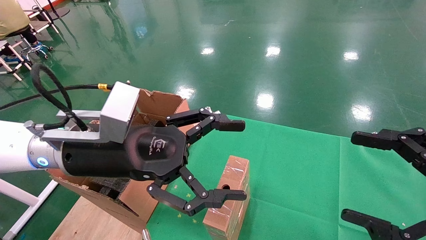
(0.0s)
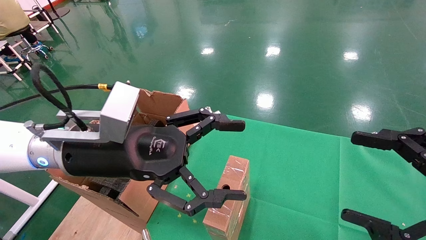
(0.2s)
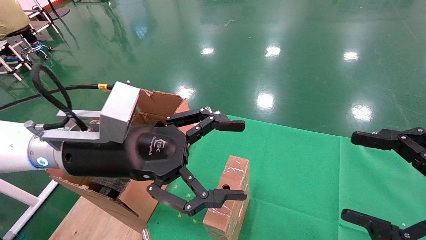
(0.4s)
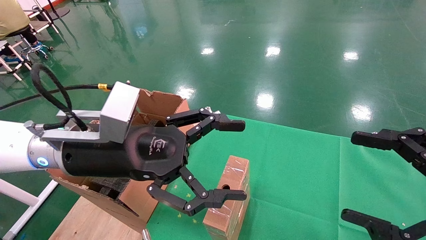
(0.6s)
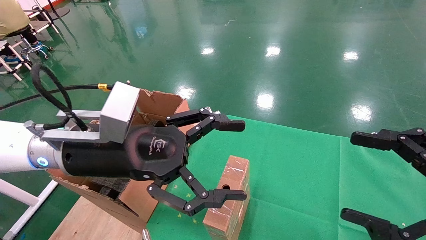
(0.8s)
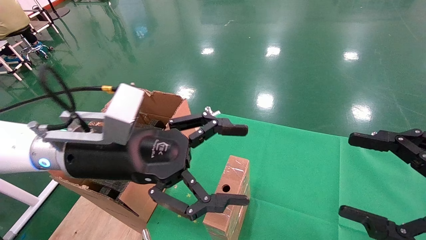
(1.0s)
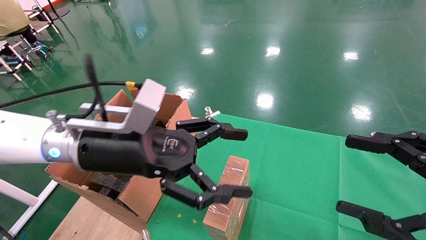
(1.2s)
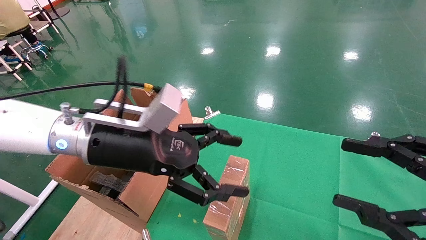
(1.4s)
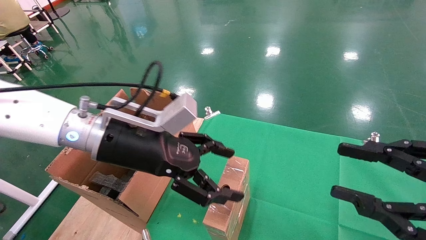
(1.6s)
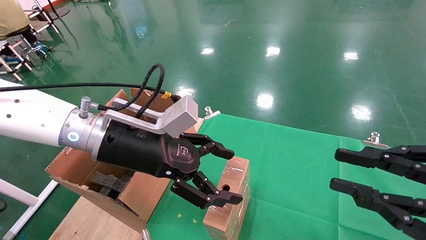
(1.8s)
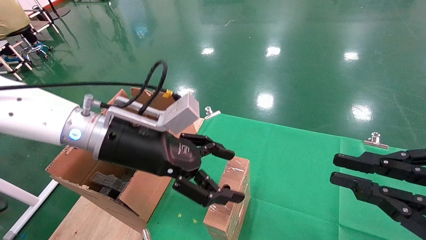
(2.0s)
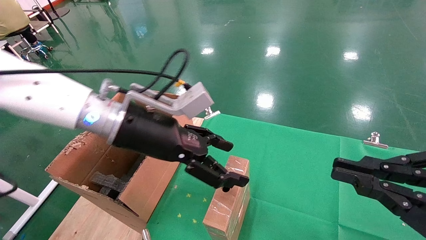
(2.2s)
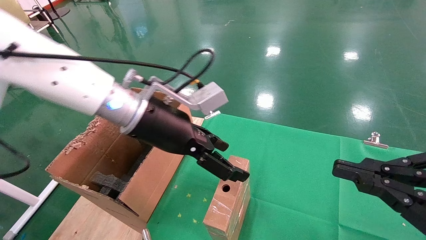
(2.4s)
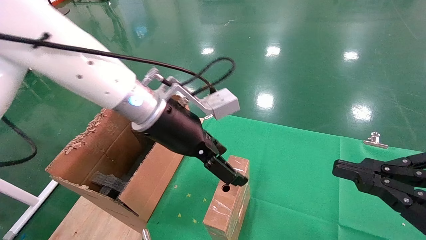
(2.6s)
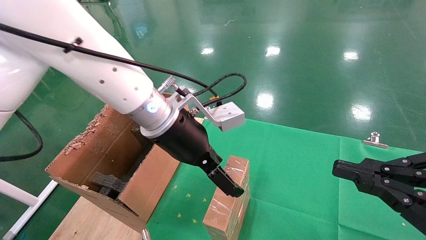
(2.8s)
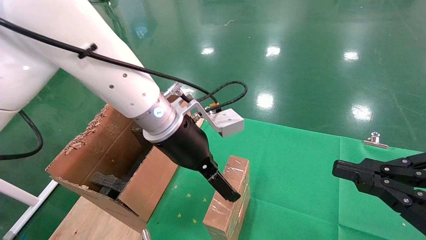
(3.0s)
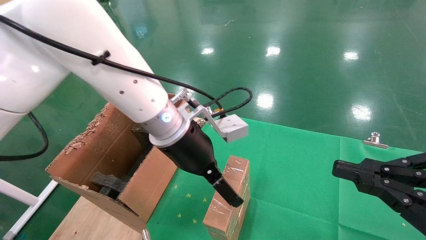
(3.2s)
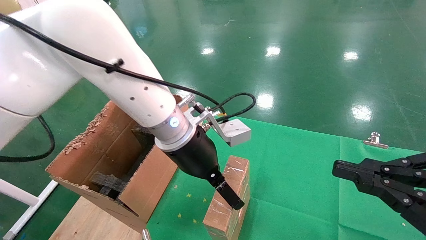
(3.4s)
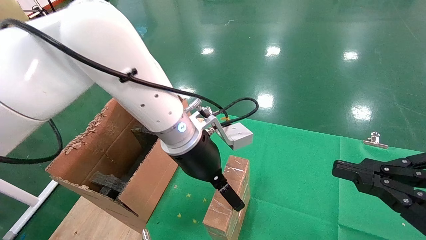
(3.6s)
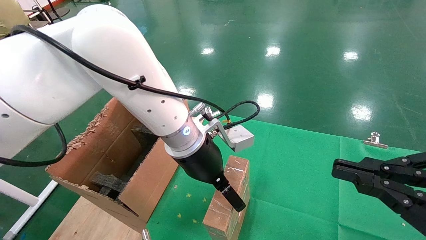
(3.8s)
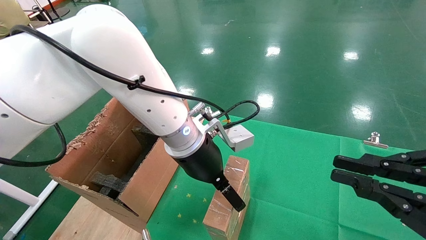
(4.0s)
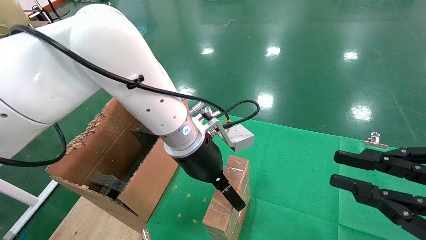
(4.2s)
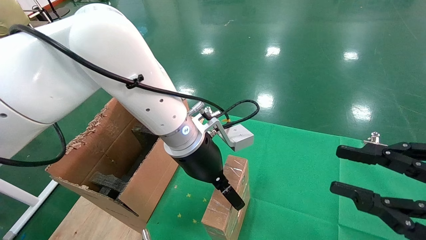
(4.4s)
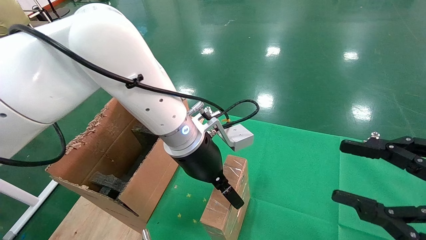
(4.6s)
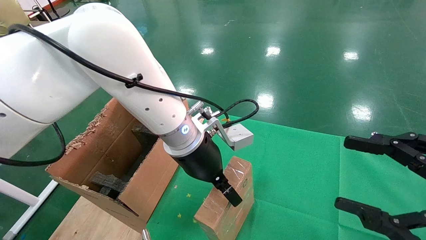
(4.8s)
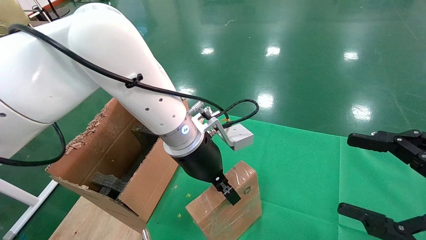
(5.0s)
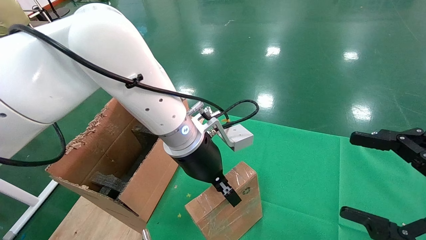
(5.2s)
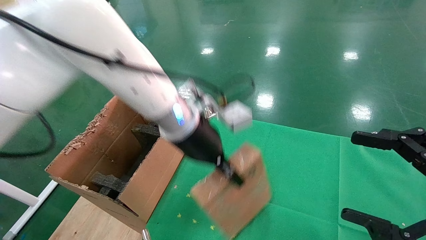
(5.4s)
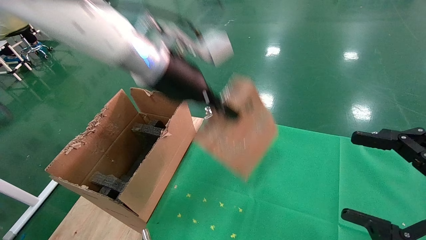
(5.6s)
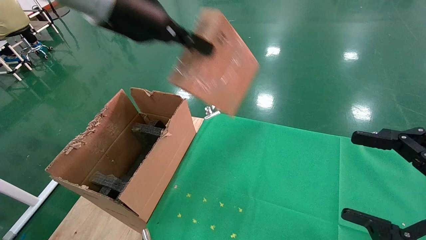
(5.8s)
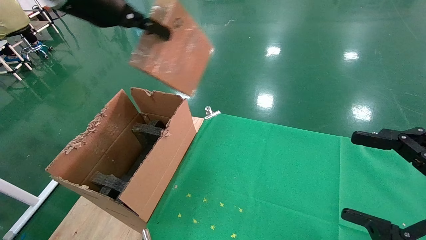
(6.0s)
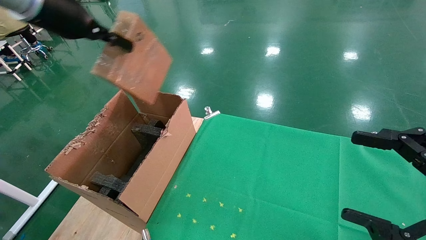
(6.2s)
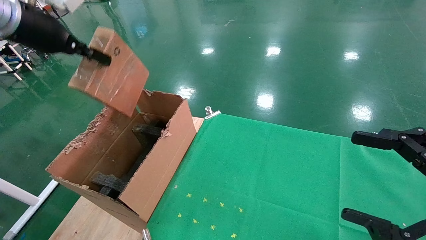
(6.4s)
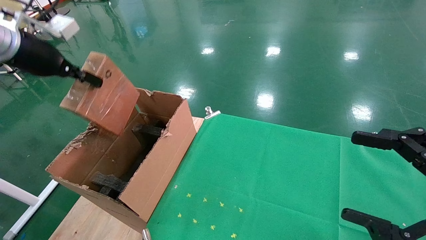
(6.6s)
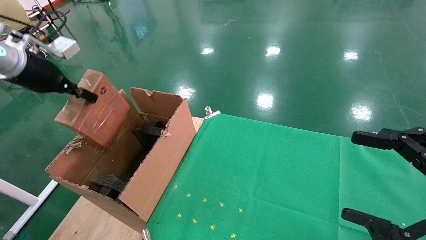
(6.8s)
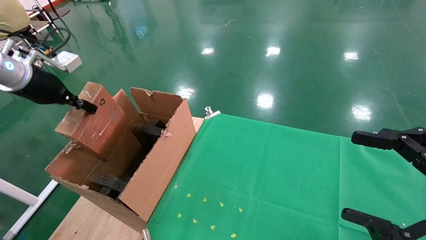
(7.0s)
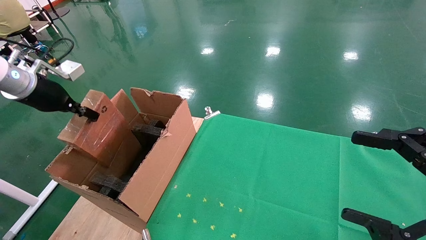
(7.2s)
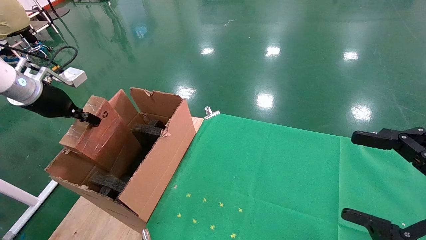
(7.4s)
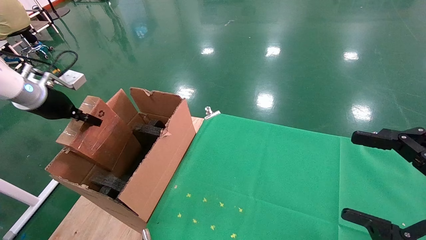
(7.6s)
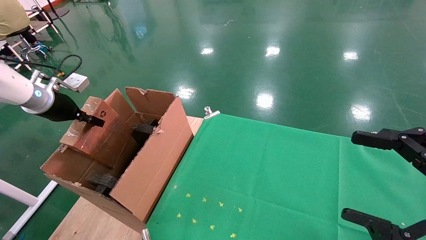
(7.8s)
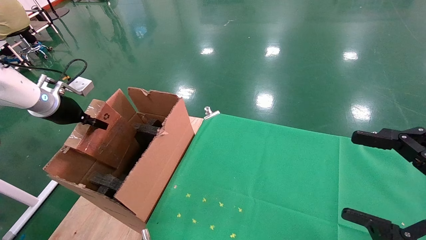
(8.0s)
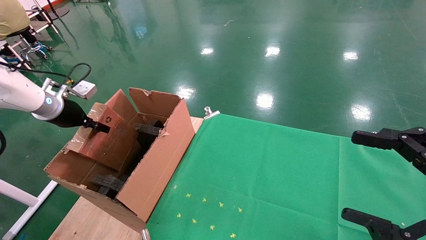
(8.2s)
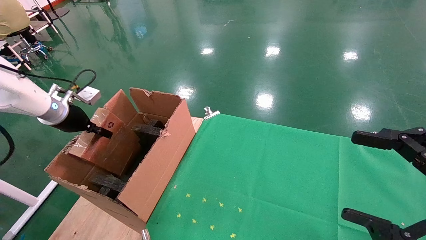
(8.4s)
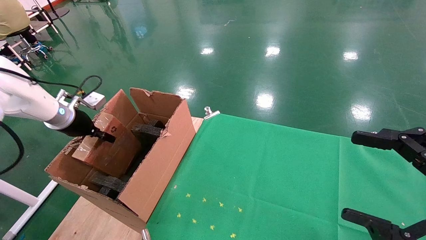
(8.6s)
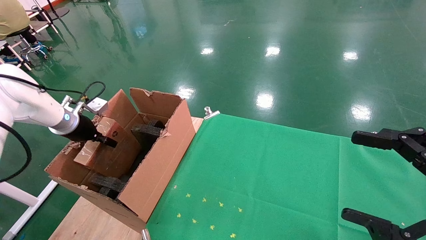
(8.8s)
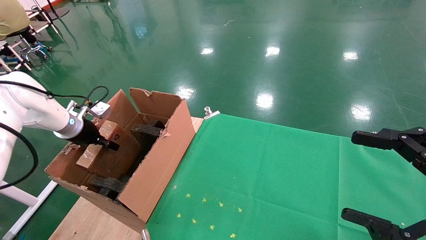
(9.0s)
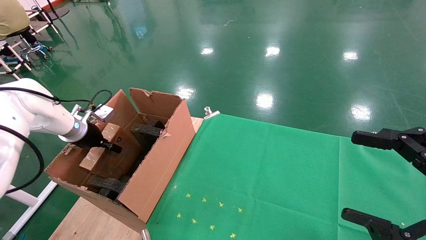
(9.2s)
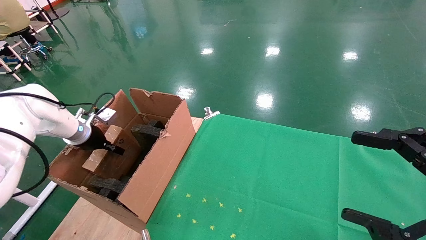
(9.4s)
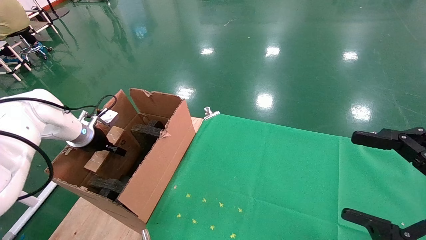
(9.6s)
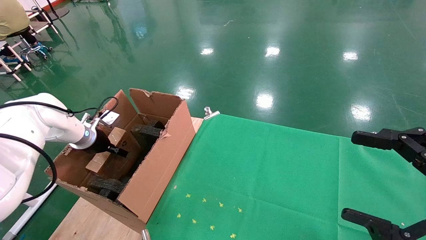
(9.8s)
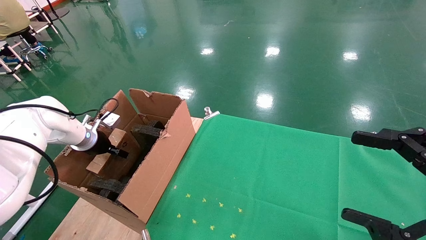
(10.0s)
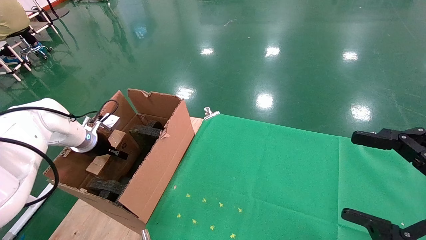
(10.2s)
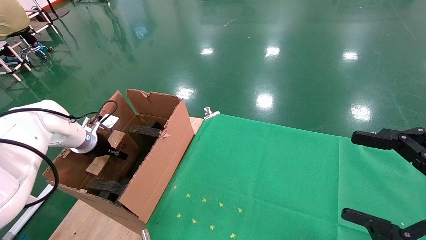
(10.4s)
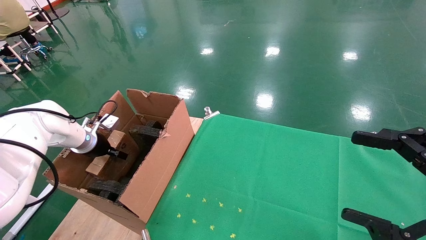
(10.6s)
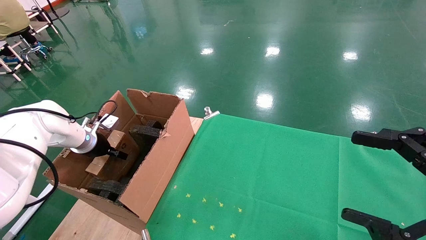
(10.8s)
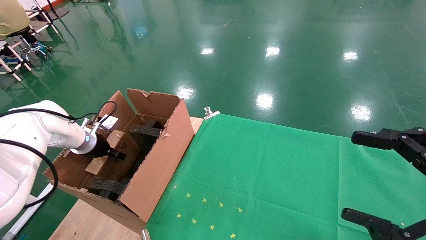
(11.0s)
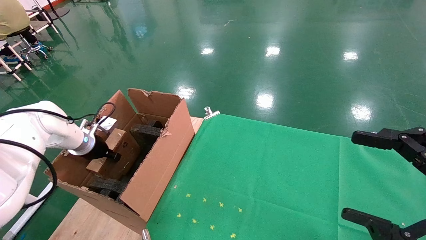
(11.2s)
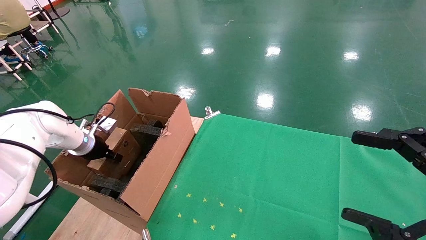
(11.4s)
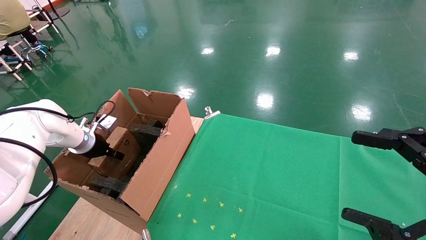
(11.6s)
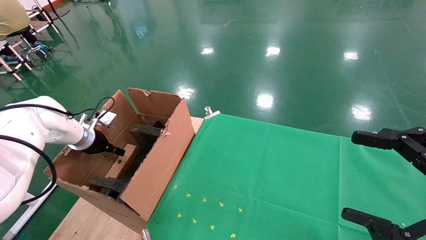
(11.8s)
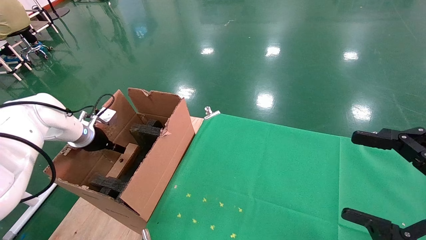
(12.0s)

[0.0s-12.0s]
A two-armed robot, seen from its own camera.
Task of the whole recording: using a robotic arm to pick up a cardboard box and palace it the carton.
Step, 1.2s to 5.0s: Pick up the mouse and the power cord paper box.
0.0s to 1.6s: The right gripper closes up.
1.6s to 3.0s: The left gripper heads to the right, covering roughly 10 cm. The right gripper closes up.
4.4s to 6.0s: The right gripper opens its fingers. Meanwhile the left gripper moves upward and to the left, roughly 30 cm, and closes up.
6.0s to 7.6s: The left gripper shifts roughly 25 cm to the left and downward.
7.6s to 9.0s: The left gripper heads downward, covering roughly 10 cm.
9.0s to 10.4s: The left gripper travels downward by approximately 5 cm.
10.4s to 12.0s: The left gripper opens.

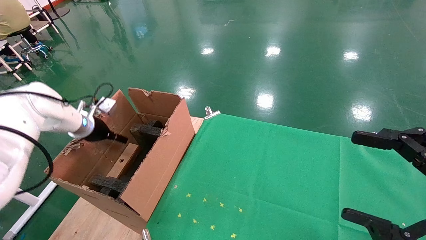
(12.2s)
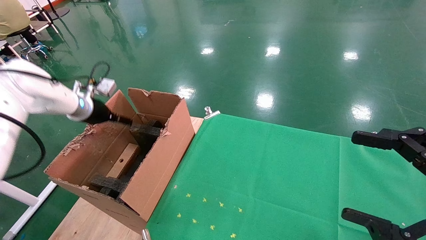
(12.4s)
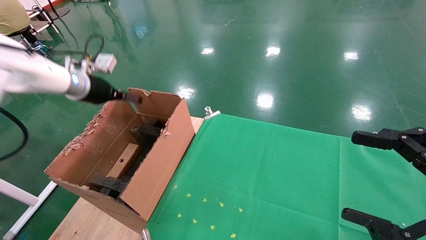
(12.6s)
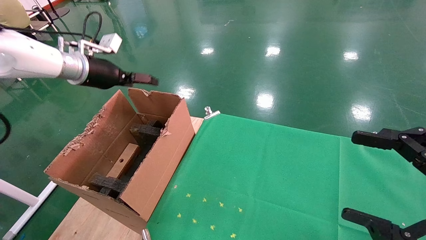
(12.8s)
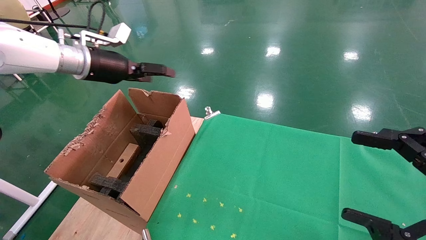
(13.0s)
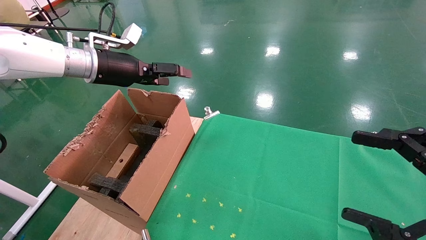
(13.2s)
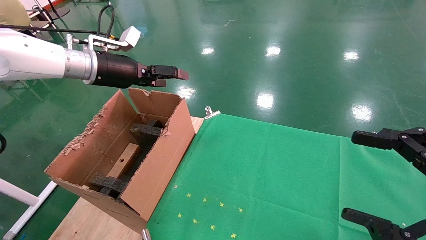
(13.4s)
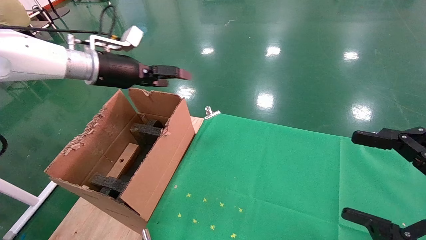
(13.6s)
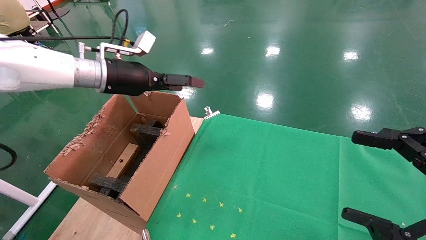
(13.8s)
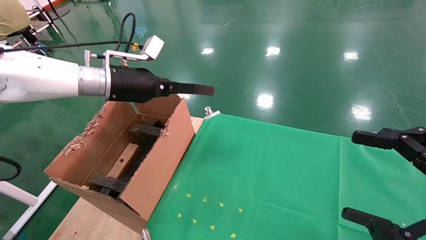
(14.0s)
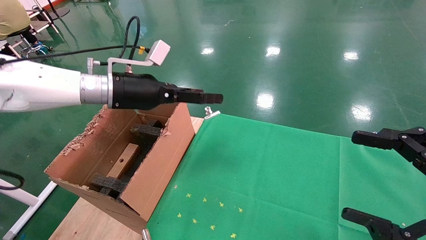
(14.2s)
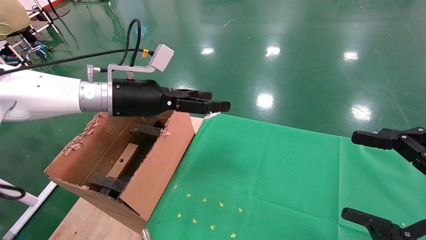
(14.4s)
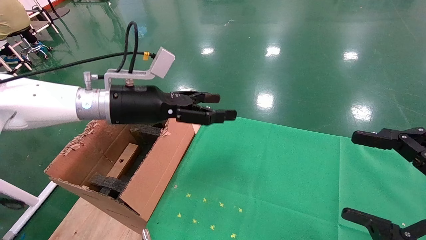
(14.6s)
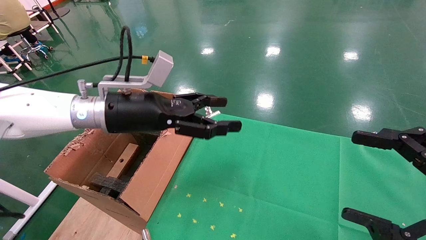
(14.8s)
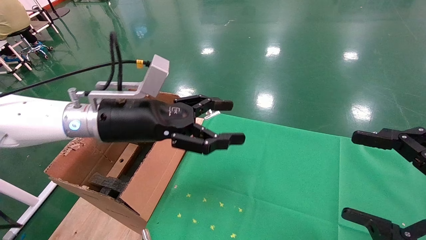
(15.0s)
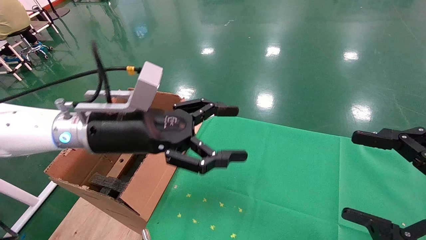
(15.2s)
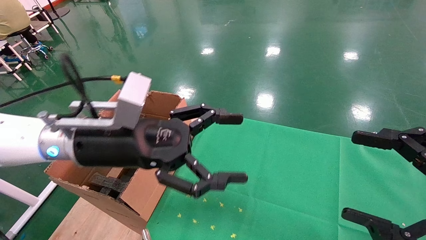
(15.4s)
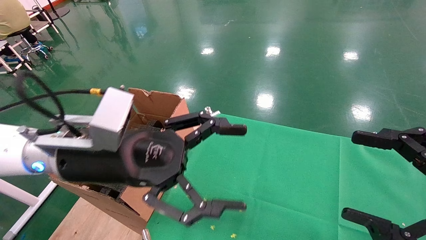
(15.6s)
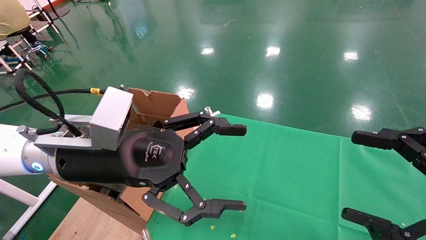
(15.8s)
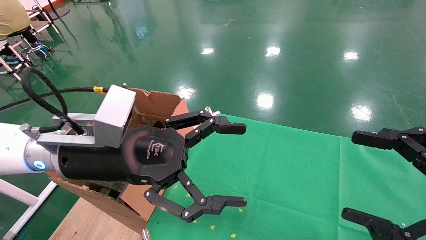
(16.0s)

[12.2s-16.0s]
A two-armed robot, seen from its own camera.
Task of the whole recording: using a robotic arm to pick up a cardboard box and palace it the carton.
12.2s to 13.4s: The left gripper goes roughly 20 cm upward and to the right.
13.4s to 14.8s: The left gripper shifts roughly 15 cm to the right, backward and downward.
14.8s to 16.0s: The left gripper goes approximately 10 cm backward.

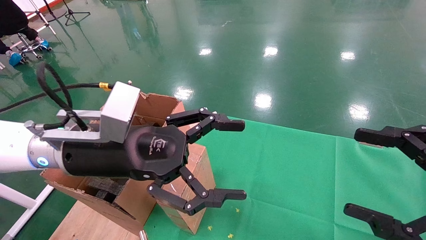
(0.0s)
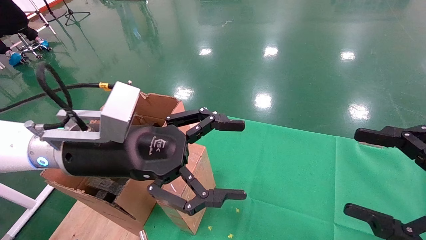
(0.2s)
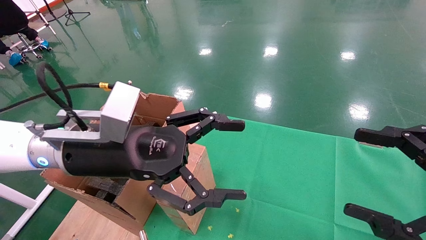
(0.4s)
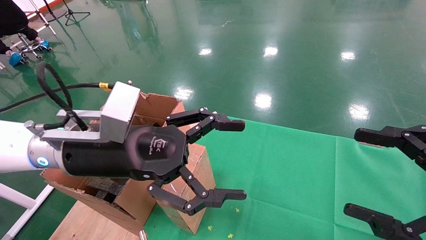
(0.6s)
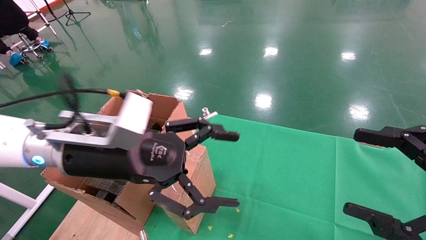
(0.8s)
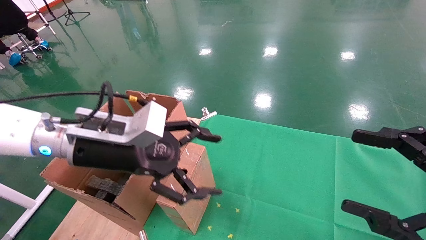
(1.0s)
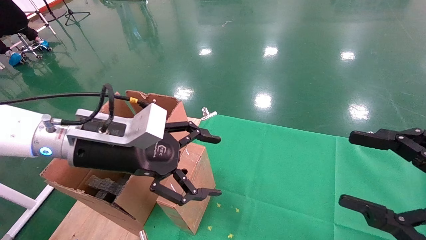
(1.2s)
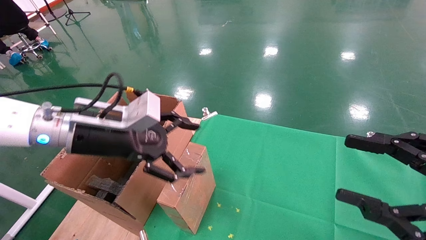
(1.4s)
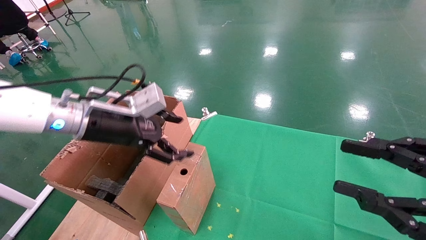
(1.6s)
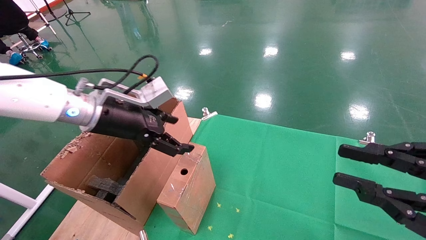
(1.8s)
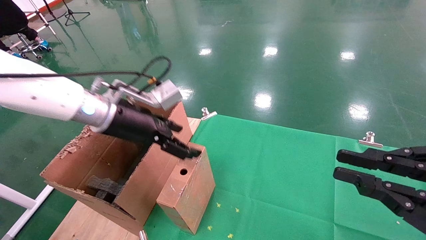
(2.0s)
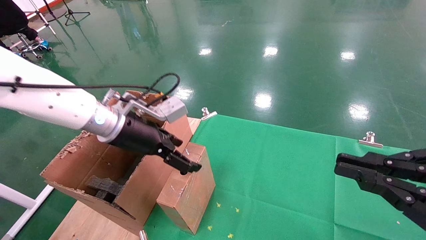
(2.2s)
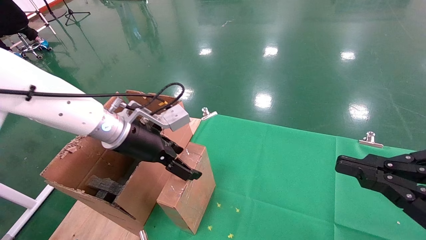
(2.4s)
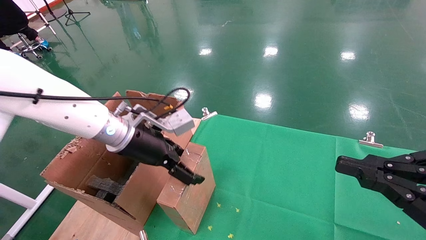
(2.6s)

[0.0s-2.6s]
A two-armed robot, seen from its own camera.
Task of the whole recording: using a robotic arm to pick up a cardboard box and palace it the carton.
1.2s to 2.6s: The right gripper closes its fingers. The left gripper heads forward, covering roughly 5 cm.
